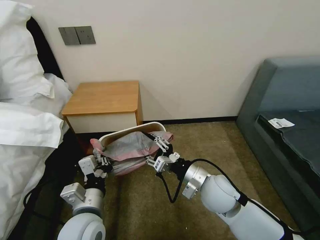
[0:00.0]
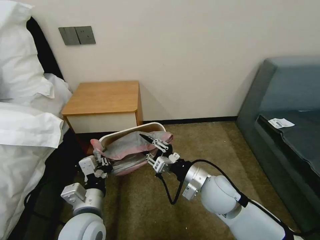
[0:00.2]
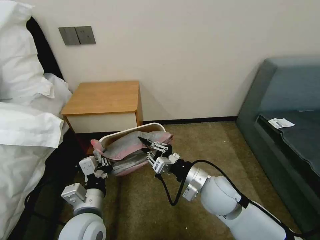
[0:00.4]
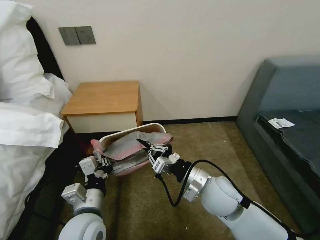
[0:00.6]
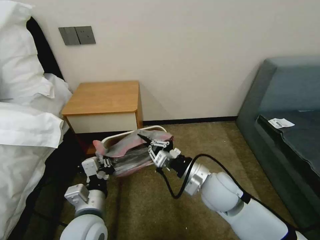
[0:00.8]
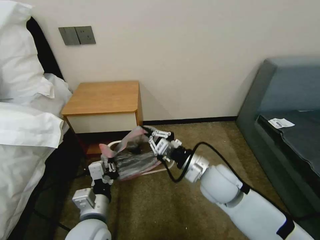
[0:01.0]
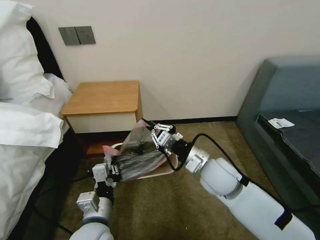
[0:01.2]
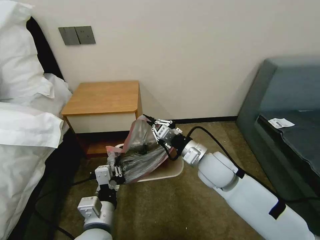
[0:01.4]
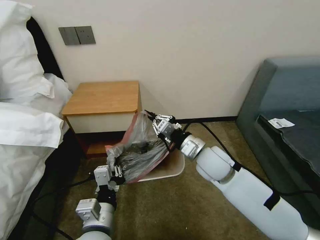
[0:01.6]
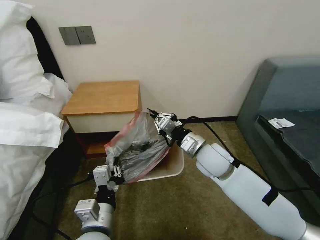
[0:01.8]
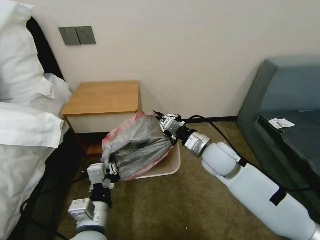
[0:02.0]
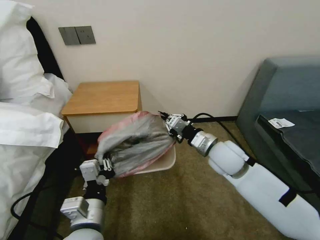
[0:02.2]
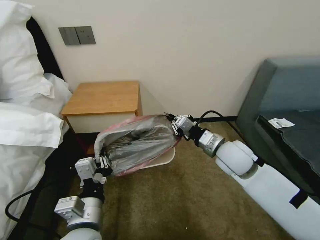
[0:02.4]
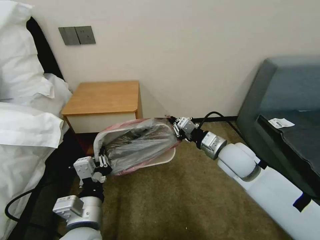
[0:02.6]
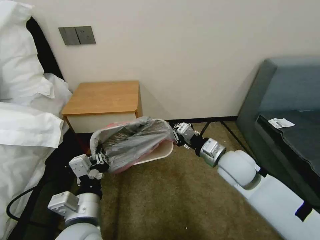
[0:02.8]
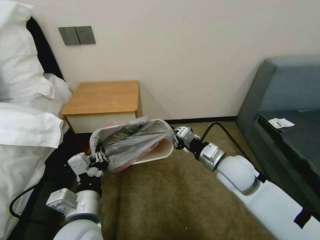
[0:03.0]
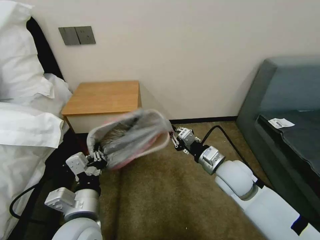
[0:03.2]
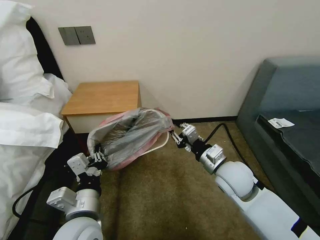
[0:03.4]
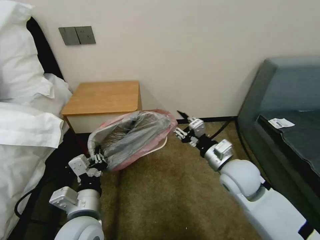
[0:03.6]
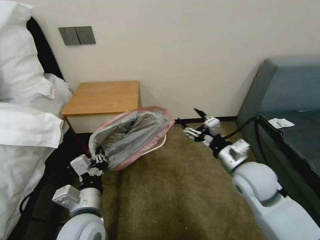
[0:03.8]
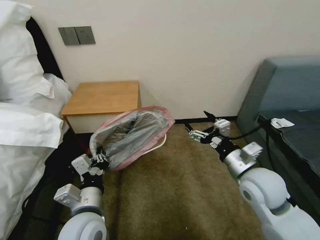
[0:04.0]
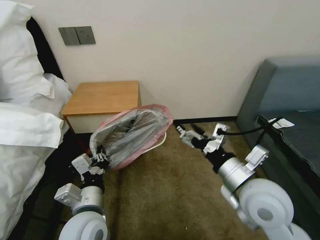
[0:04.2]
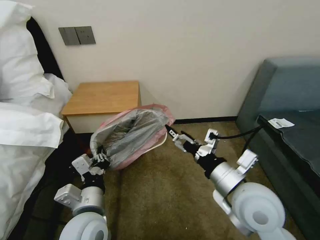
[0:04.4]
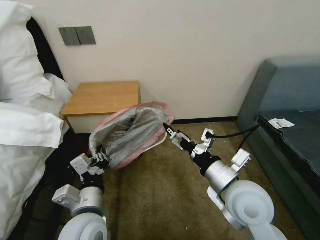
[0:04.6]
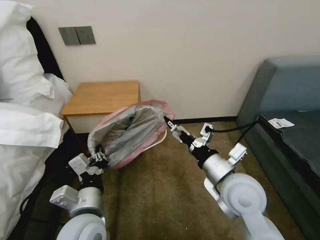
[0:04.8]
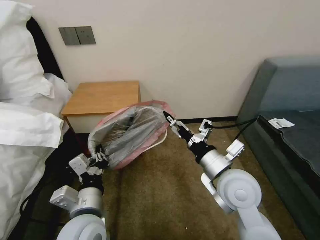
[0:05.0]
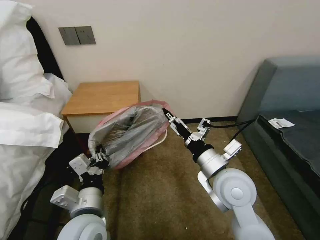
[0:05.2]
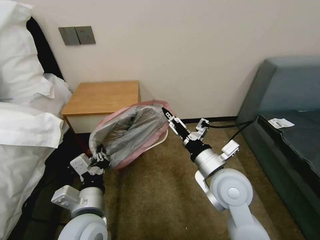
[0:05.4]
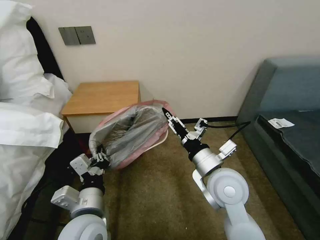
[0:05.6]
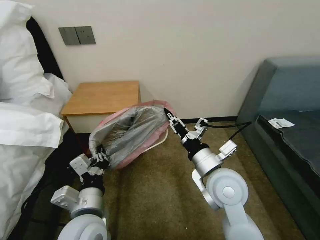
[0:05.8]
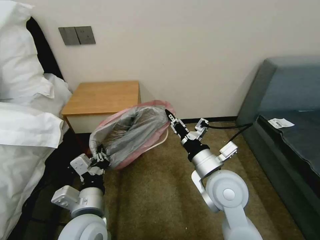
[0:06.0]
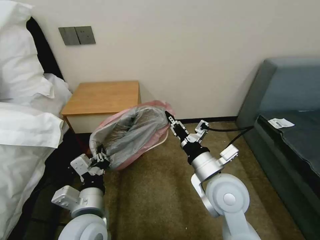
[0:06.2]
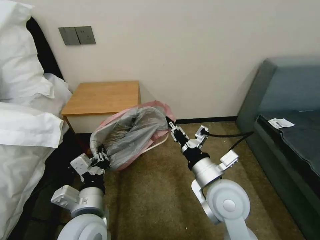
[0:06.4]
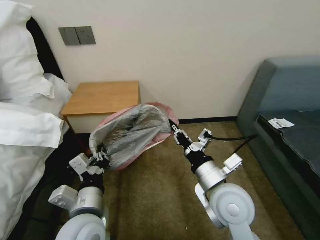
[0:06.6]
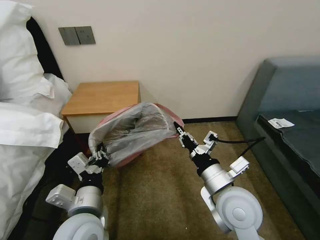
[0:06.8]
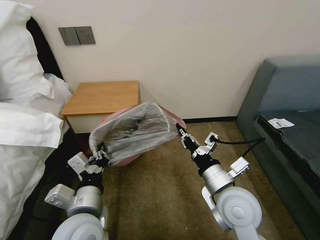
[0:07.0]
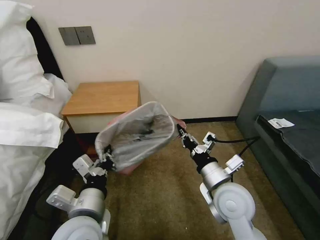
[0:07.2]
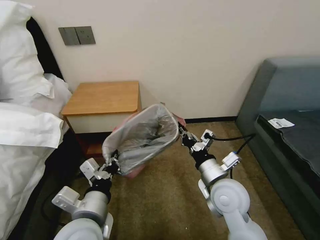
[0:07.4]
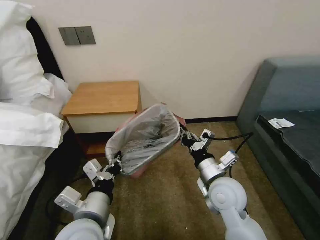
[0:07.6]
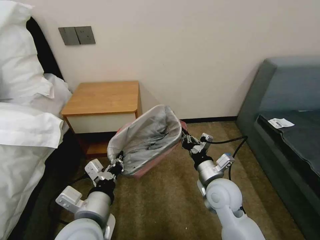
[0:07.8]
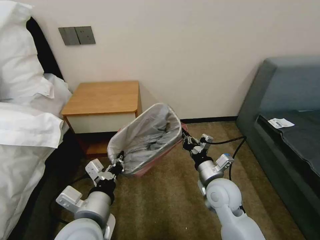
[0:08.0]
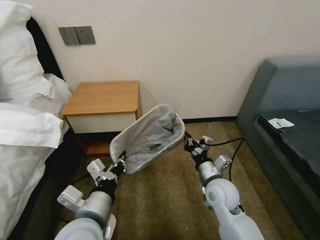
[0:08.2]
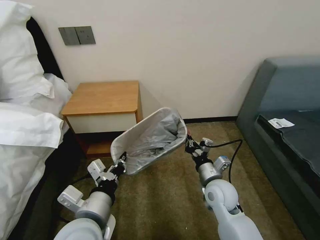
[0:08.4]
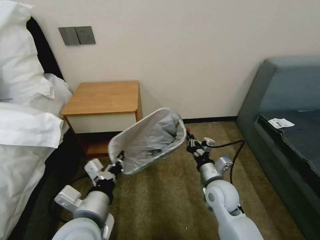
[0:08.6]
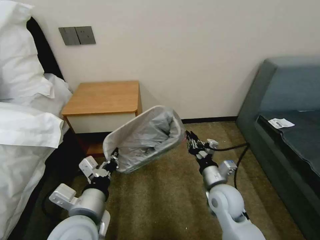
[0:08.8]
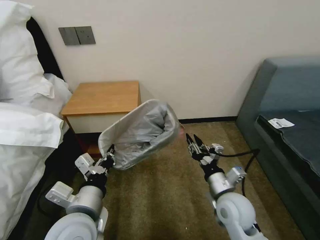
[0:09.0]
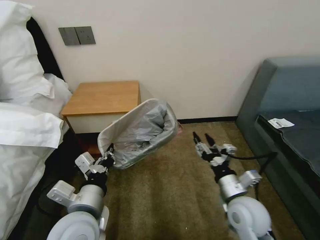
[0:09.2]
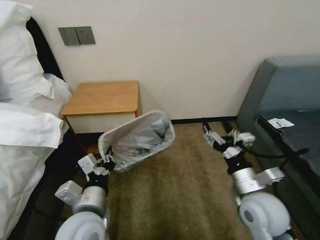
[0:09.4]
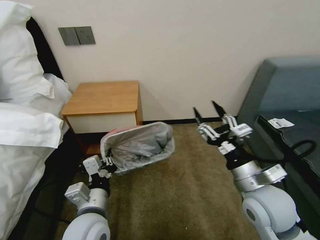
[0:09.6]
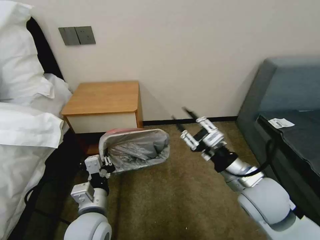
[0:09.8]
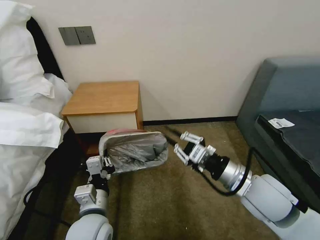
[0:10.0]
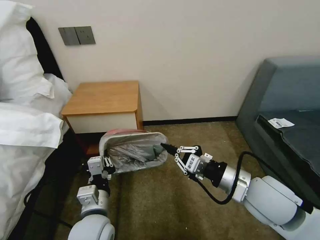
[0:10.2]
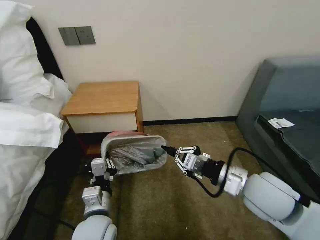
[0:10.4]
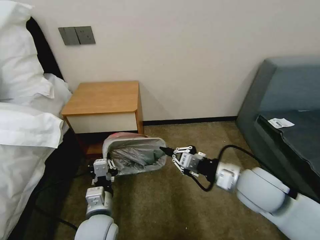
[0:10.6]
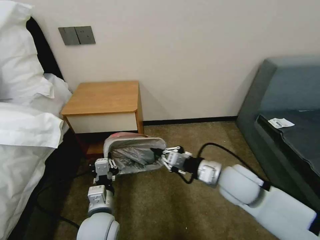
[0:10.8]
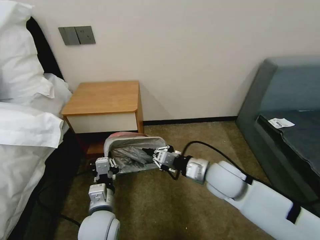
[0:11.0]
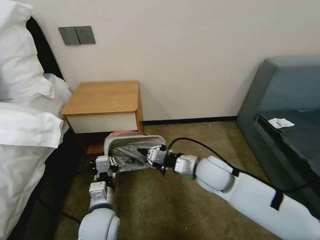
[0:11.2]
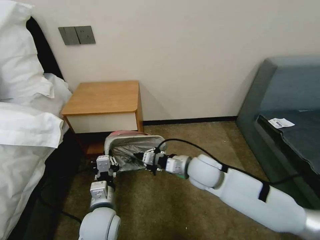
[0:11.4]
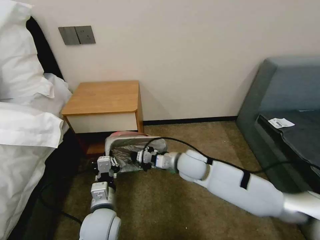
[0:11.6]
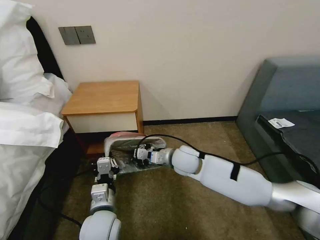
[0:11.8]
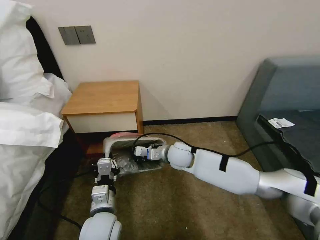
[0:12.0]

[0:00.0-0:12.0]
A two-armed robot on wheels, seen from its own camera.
Task of the whole recording: Pick up the garbage bag from the table and place it over the trash can.
0:00.0 to 0:01.6: The right gripper travels forward by roughly 5 cm, and closes its fingers.
0:01.6 to 0:03.0: The right gripper goes approximately 5 cm to the right.
0:03.0 to 0:04.4: The right gripper heads backward and upward, covering about 10 cm, and opens.
0:04.4 to 0:06.0: The right gripper shifts by some 5 cm, and closes its fingers.
0:06.0 to 0:07.6: The right gripper shifts about 5 cm downward.
0:07.6 to 0:09.0: The right gripper moves roughly 5 cm, and opens up.
0:09.0 to 0:10.4: The right gripper is displaced upward by about 10 cm, and closes its fingers; the left gripper shifts approximately 10 cm downward.
0:10.4 to 0:12.0: The right gripper heads forward, to the left and downward, covering approximately 25 cm.

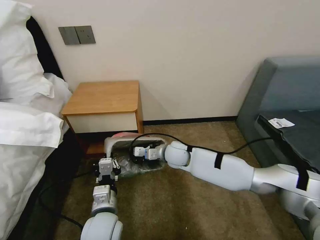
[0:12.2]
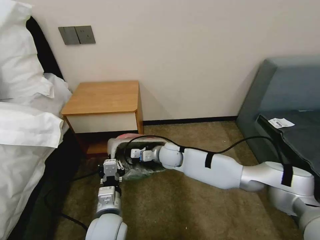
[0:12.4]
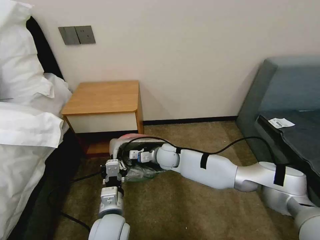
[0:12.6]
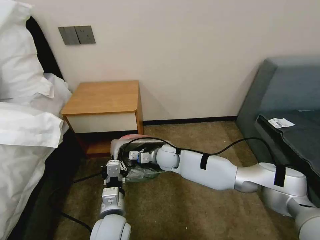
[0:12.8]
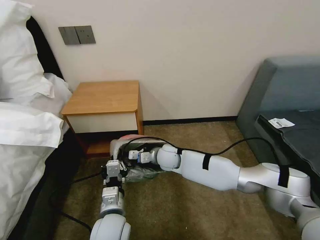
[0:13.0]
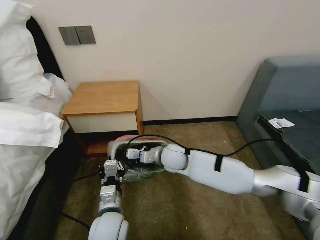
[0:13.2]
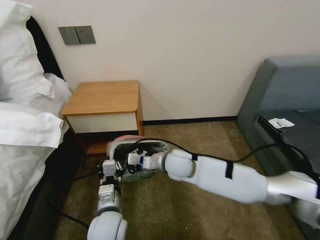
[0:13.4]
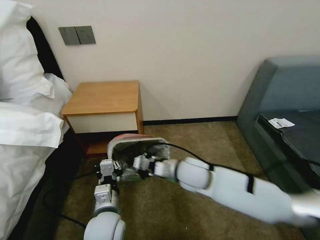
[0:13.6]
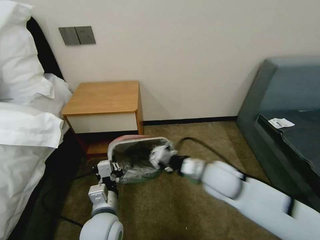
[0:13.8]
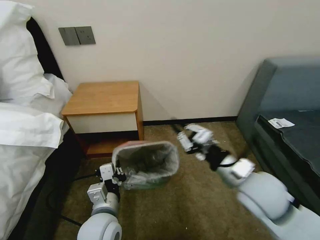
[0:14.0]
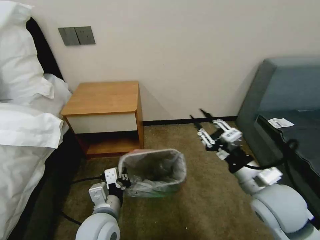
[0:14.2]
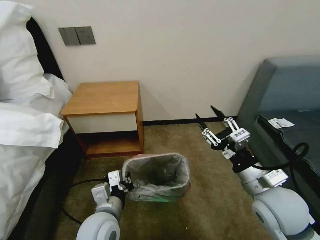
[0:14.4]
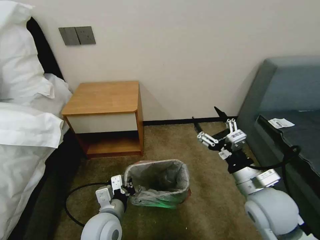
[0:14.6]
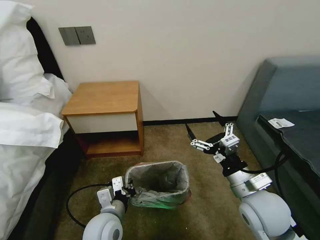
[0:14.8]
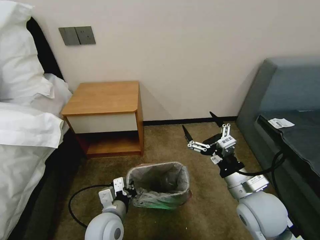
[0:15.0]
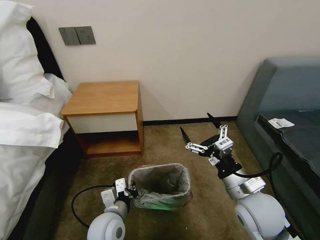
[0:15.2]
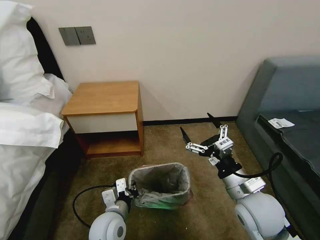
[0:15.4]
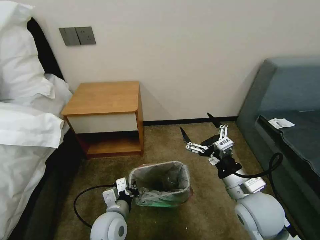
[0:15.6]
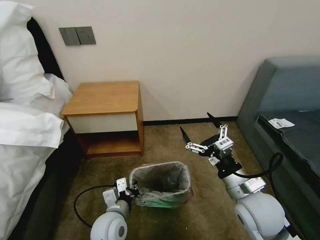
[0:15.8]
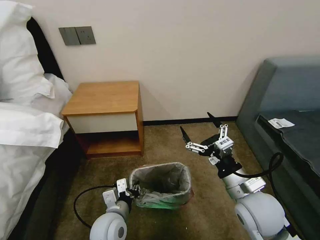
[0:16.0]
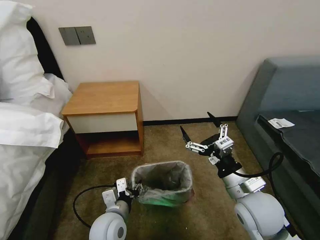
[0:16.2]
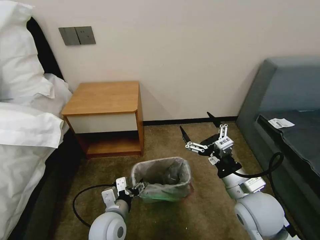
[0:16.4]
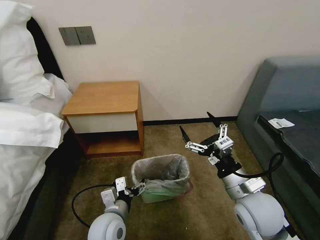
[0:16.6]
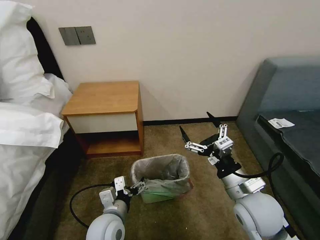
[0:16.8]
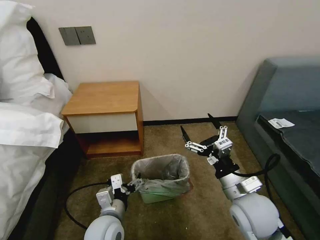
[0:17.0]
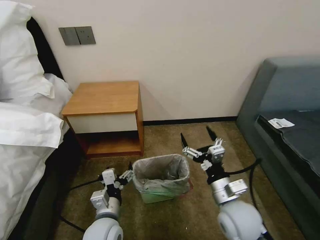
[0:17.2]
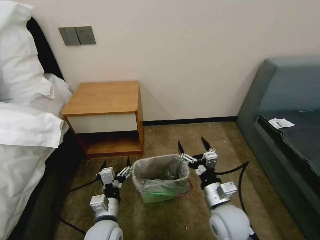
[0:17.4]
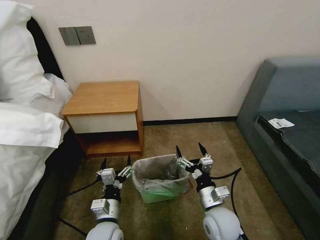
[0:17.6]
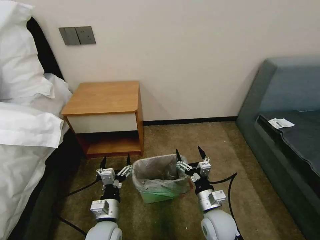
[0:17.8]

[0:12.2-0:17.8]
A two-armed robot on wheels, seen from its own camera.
Task of the whole recording: Pick up the garbage bag from the table and place it over the trash can.
0:12.2 to 0:13.6: The right gripper heads backward and to the right, covering approximately 10 cm.
0:13.6 to 0:15.0: The right gripper heads to the right and backward, covering roughly 15 cm, and opens.
0:15.0 to 0:16.4: The left gripper opens.
0:16.4 to 0:17.8: The right gripper goes roughly 15 cm downward.

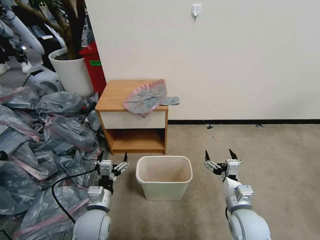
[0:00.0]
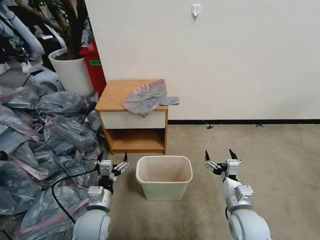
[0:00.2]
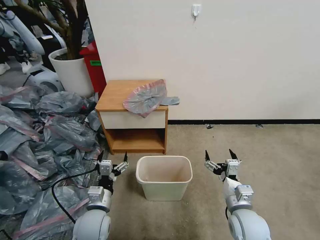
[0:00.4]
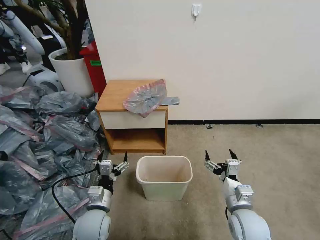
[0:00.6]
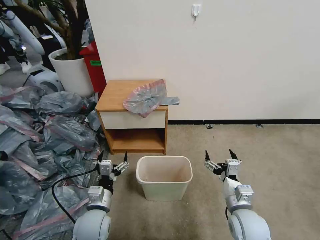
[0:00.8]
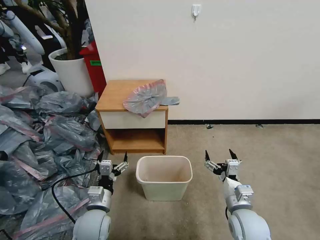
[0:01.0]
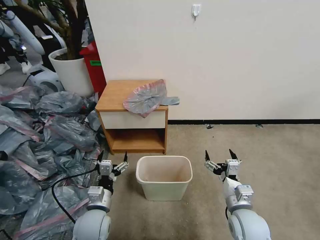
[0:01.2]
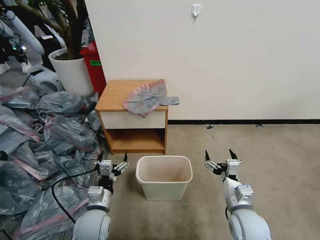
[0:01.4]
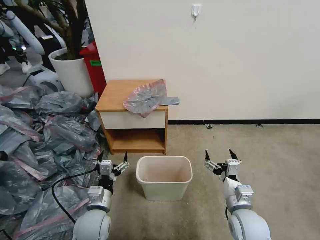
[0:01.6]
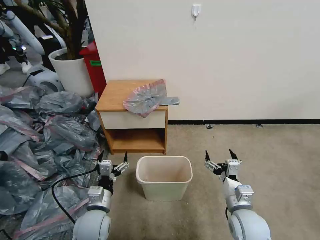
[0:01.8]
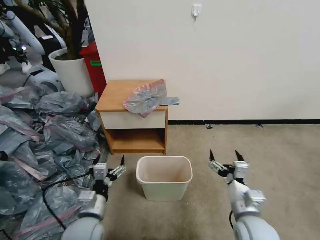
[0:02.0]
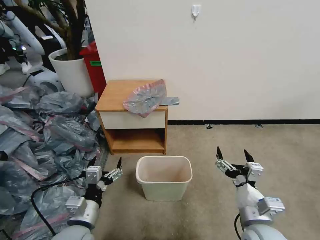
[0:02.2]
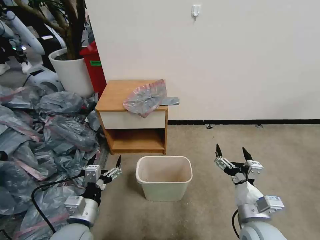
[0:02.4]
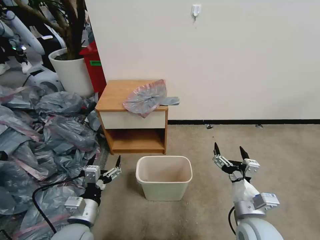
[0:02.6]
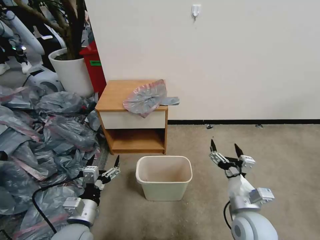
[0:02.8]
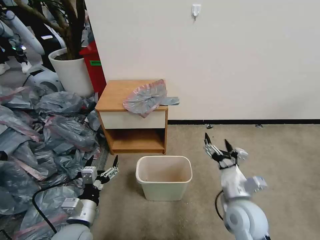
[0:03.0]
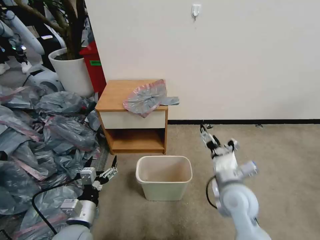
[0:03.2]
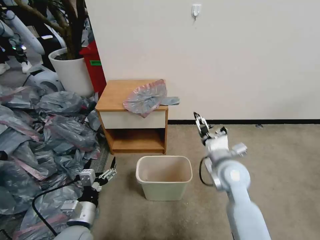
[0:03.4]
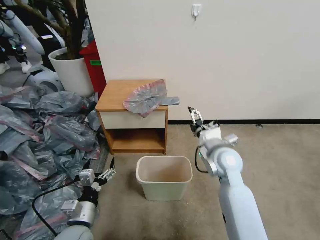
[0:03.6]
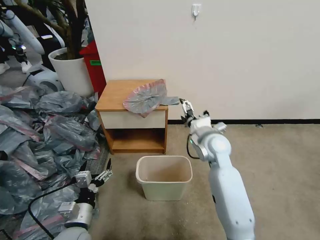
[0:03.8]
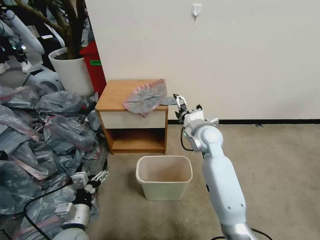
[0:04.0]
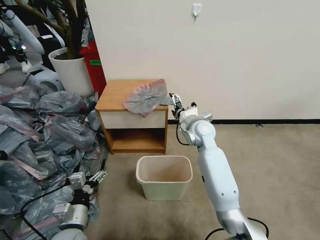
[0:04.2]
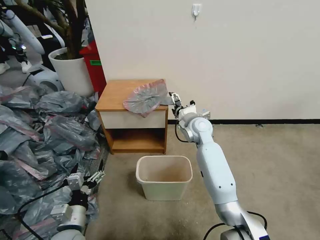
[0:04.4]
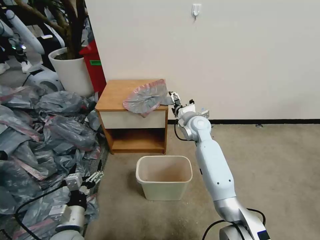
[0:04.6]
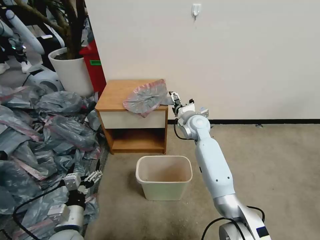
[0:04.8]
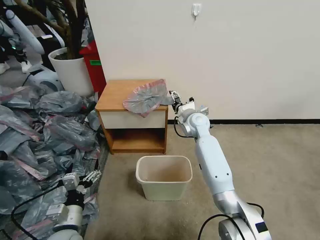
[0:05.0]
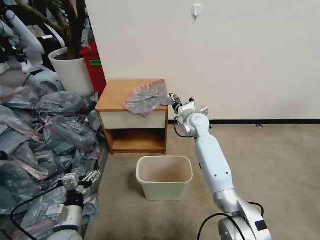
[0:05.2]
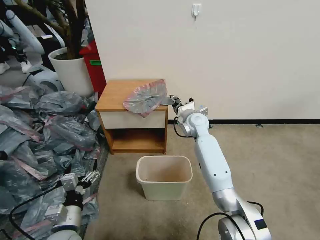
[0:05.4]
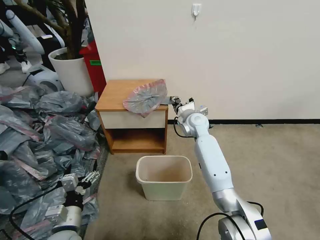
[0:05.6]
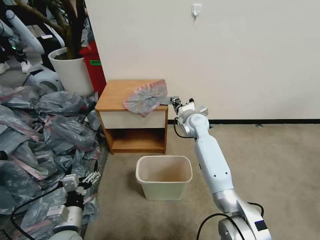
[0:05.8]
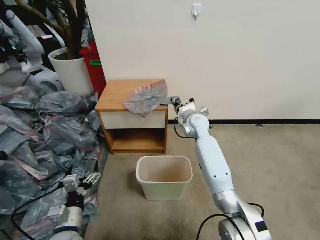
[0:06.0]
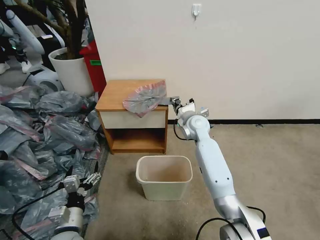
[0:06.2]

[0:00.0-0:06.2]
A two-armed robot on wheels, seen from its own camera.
Task of the whole recording: Pick up the garbage bag from the table and place it over the trash can.
0:01.6 to 0:03.2: The left gripper shifts by roughly 5 cm, while the right gripper shifts some 10 cm upward and forward.
0:03.2 to 0:04.6: The right gripper shifts some 25 cm forward.
0:04.6 to 0:06.2: The right gripper closes its fingers.
